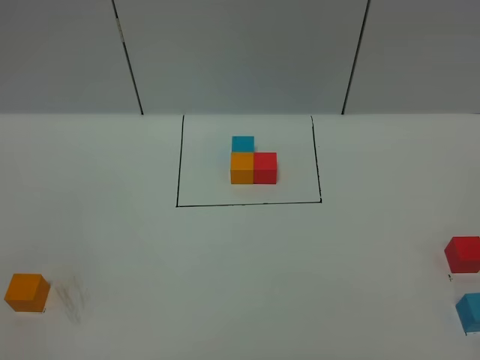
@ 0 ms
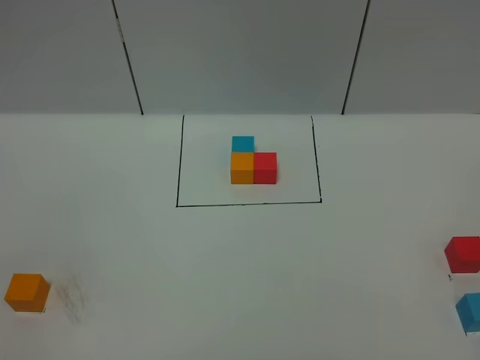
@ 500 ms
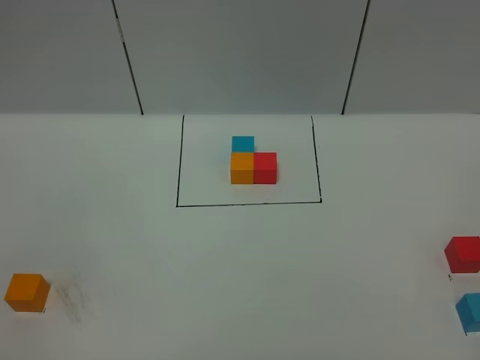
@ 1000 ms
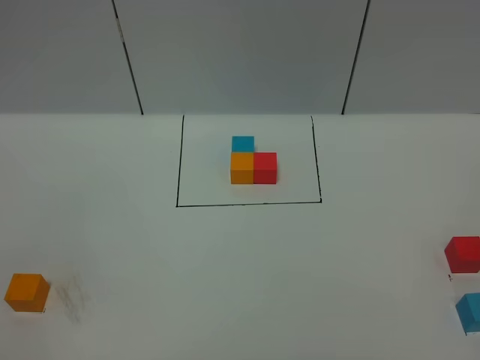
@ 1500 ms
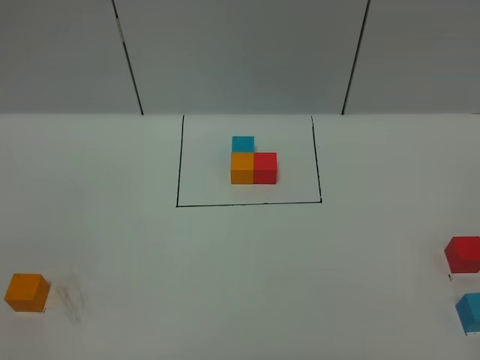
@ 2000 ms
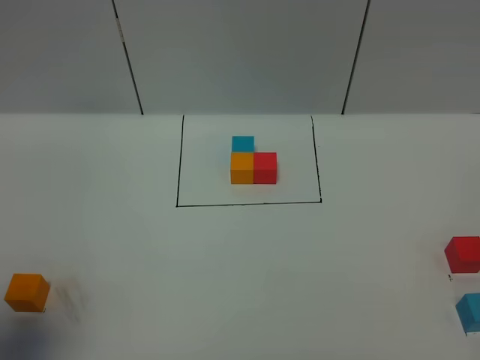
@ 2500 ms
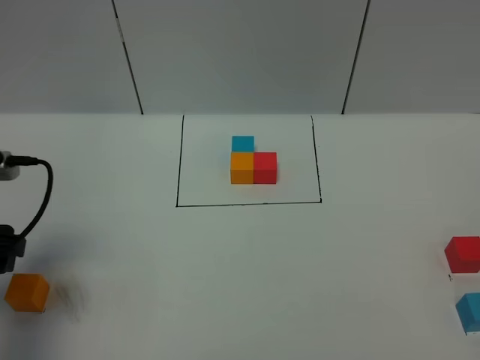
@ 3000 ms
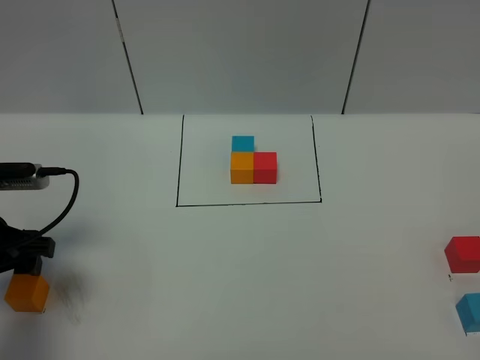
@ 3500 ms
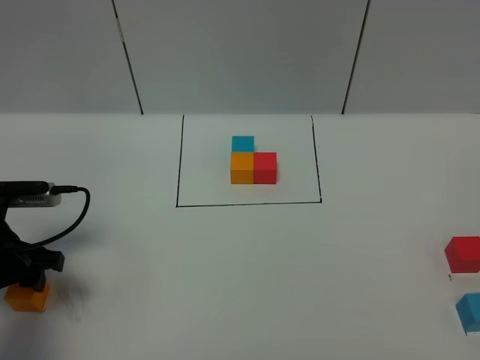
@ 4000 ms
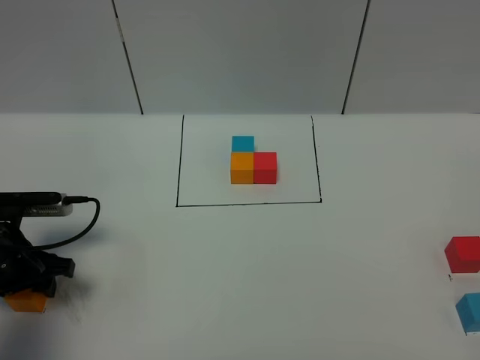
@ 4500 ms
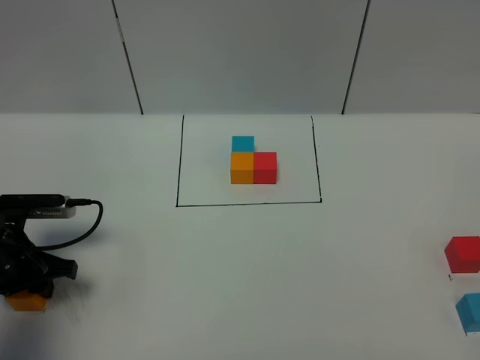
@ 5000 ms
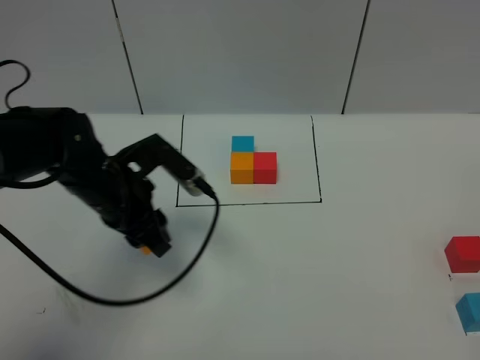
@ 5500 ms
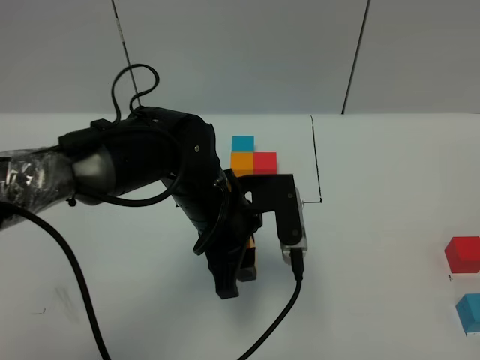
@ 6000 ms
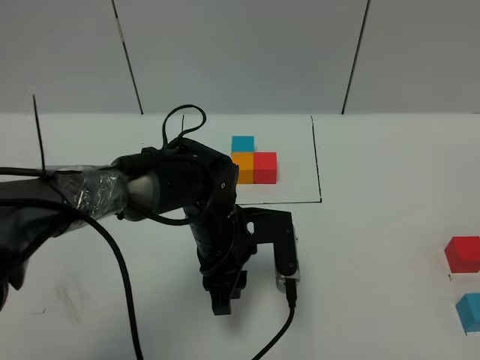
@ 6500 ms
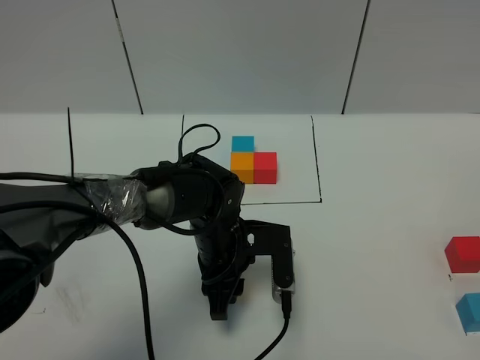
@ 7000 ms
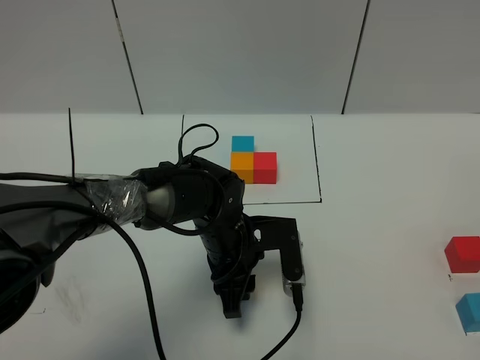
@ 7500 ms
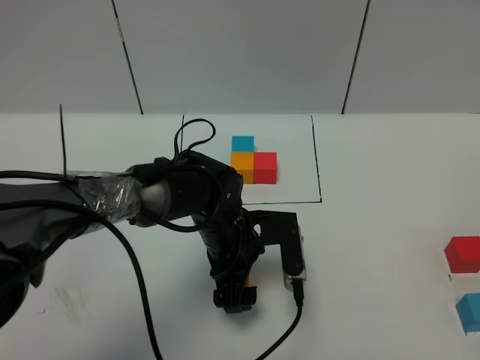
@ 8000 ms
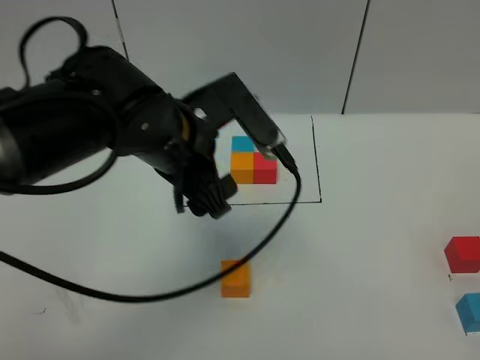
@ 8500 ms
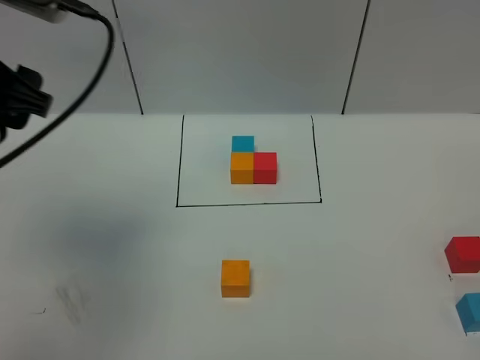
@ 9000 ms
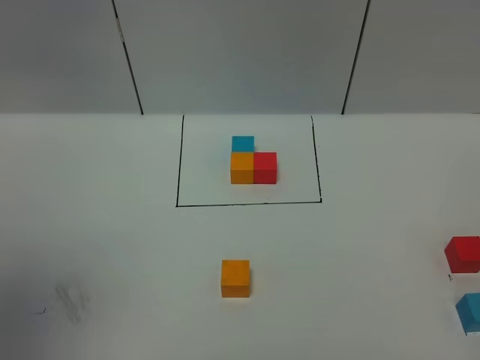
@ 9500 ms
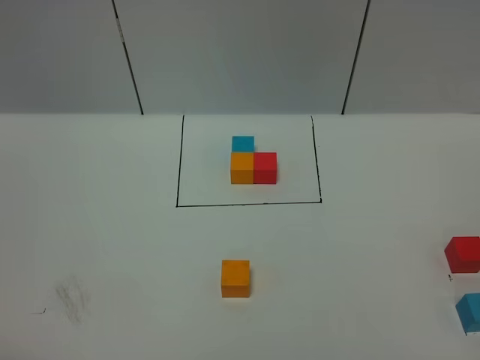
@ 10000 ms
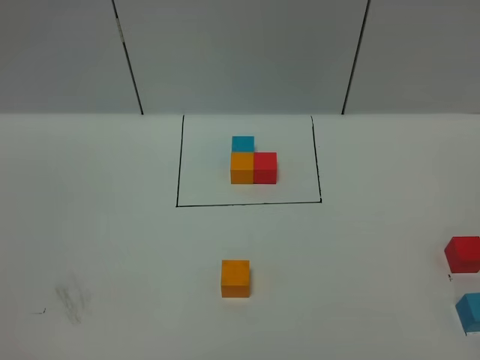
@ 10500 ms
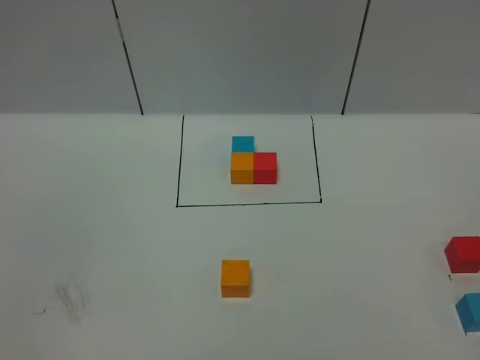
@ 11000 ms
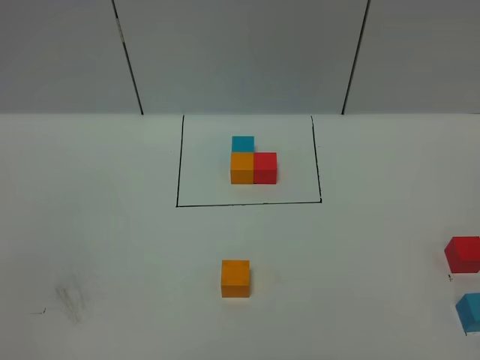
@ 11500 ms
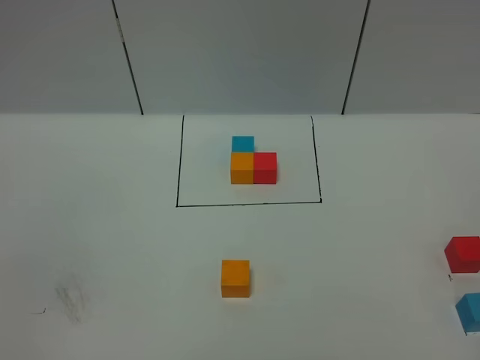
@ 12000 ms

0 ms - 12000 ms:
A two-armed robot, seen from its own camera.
Task of the whole recording: According to the building block template in front, assemble the scattered blocks together.
Step, 3000 ms - 7500 ms: Put the orange cube in the center of the table.
2000 ms - 4000 ms: The left gripper heads forward and downward, covering some 30 cm, and closes up.
4000 ms - 6000 ms: The left gripper is displaced to the right by approximately 25 cm, and closes up.
6000 ms - 8000 ms: The left gripper is displaced downward by roughly 5 cm, and opens its fingers.
8000 ms - 10000 ms: The left gripper heads upward, backward and to the left, covering roughly 60 cm.

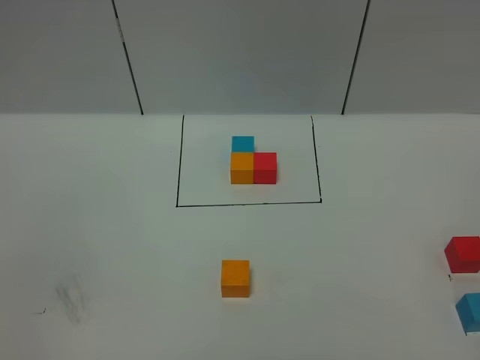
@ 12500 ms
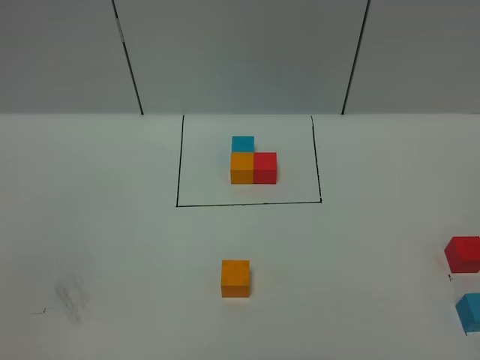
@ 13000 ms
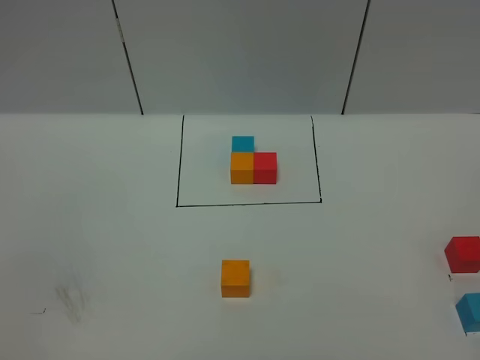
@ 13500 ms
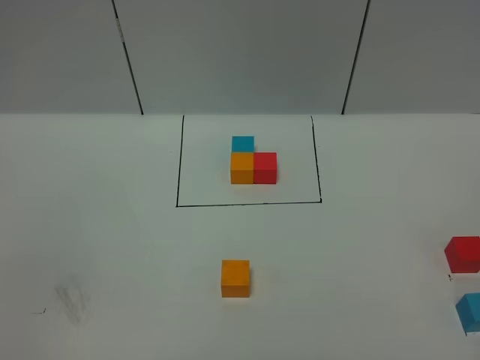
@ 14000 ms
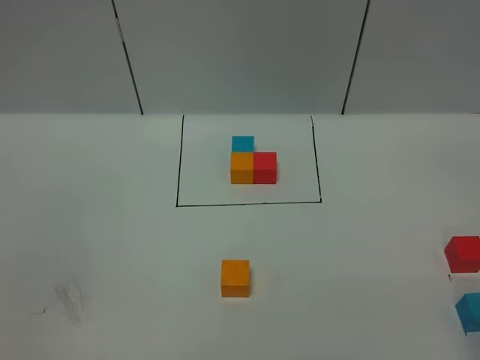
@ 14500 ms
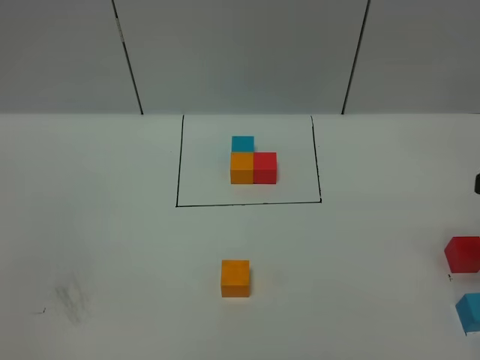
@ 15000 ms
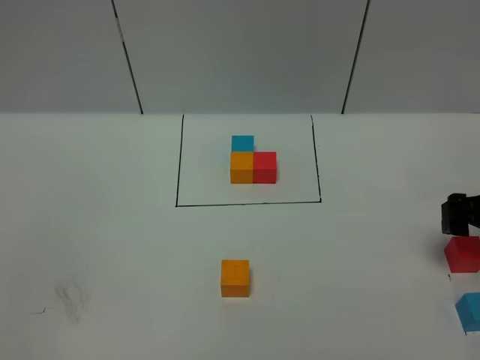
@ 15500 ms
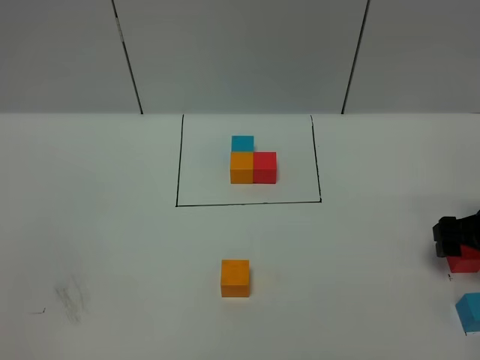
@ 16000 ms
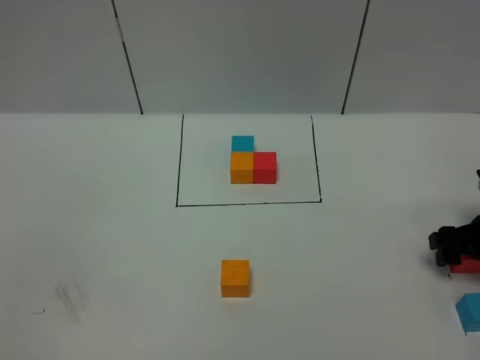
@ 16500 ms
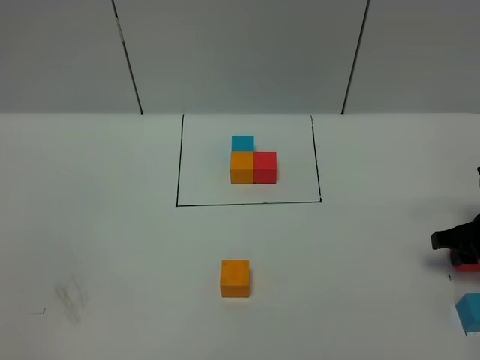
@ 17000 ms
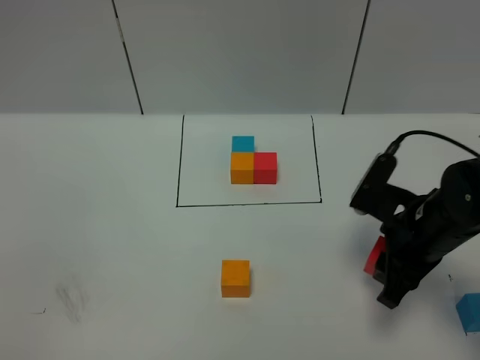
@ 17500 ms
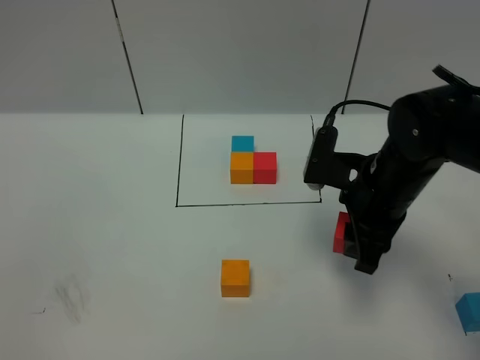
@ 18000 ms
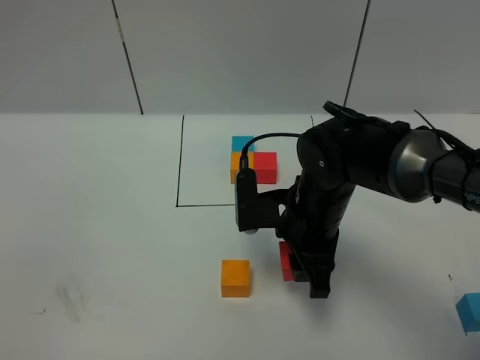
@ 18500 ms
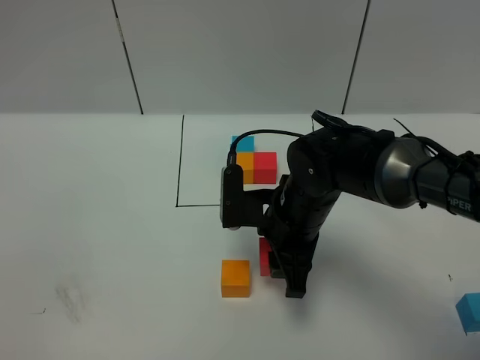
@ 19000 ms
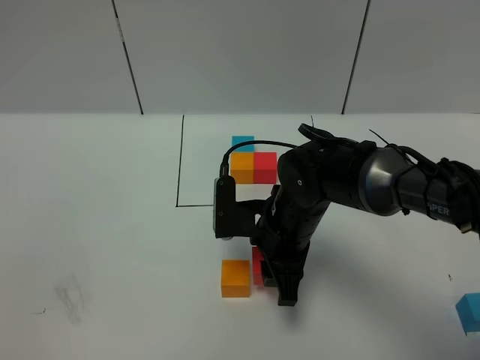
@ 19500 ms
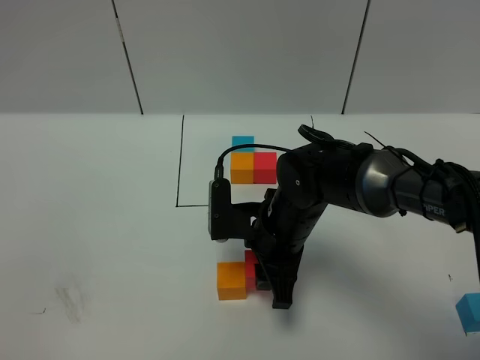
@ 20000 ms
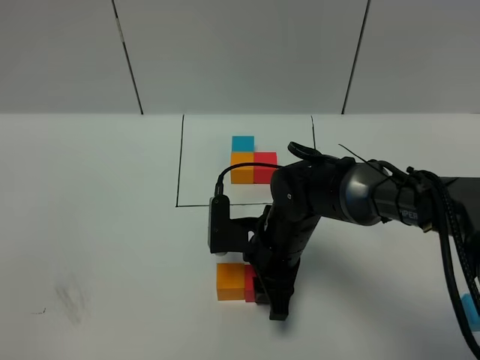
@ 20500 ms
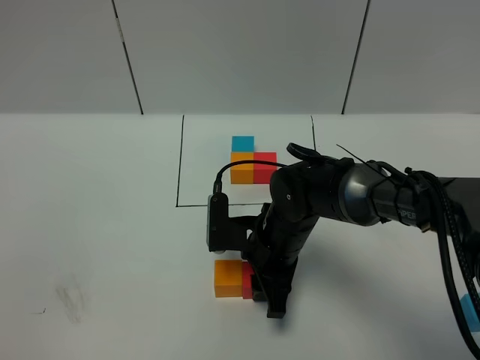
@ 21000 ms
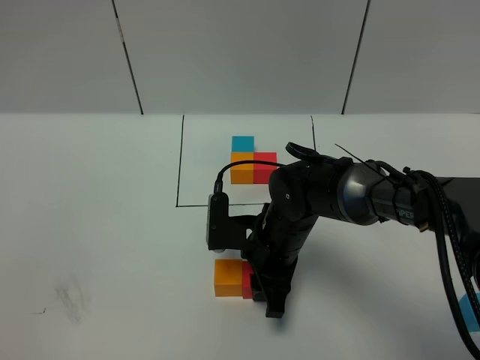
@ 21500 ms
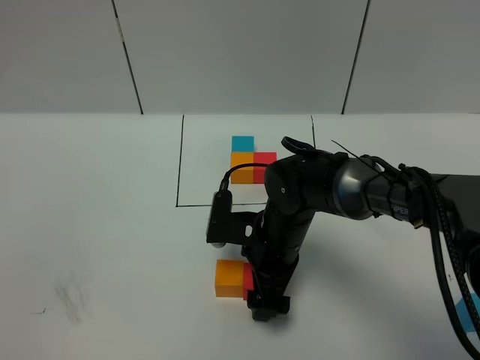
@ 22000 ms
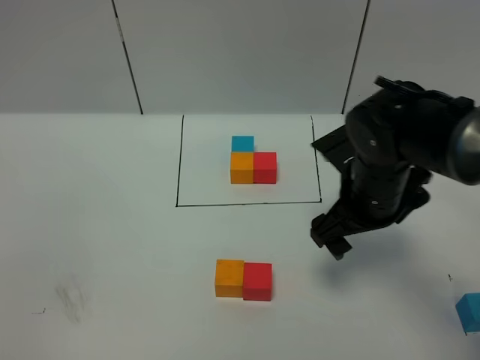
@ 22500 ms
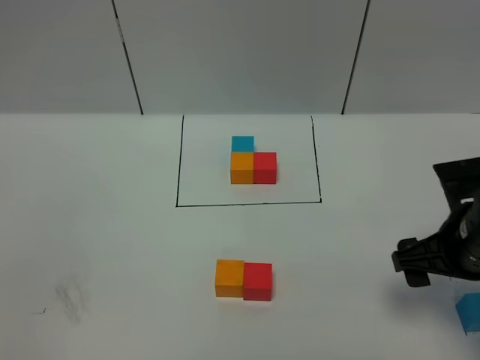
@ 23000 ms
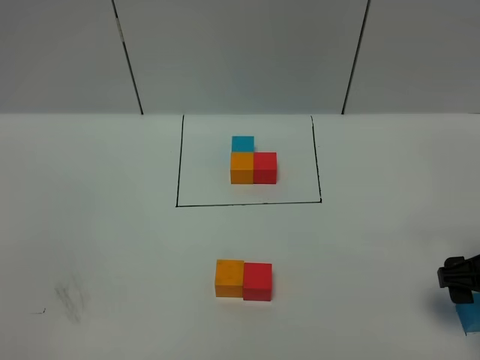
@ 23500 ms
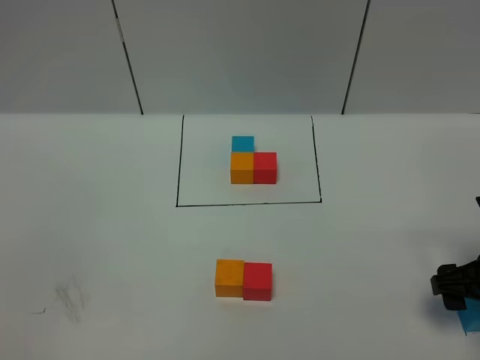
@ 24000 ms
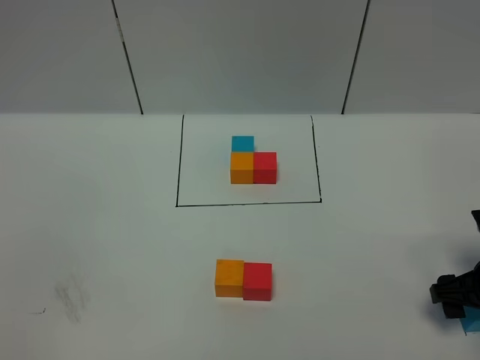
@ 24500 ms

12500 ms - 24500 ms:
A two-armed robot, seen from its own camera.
Task of the whole recording: According to the building block template in front, assemble the scattered blocks together.
Step, 12500 ms - 22000 ms: Put the red cube on the right of the orange cube.
14500 ms - 16500 ms: The right gripper travels forward and downward by approximately 30 cm.
16500 ms - 18500 ms: The right gripper travels to the left by roughly 25 cm, and closes.
18500 ms - 20500 ms: The right gripper is displaced downward by roughly 5 cm.
20500 ms - 22500 ms: The right gripper heads to the right and upward, covering approximately 15 cm, and opens up.
22500 ms - 24500 ms: The right gripper shifts about 20 cm to the right, downward and backward.

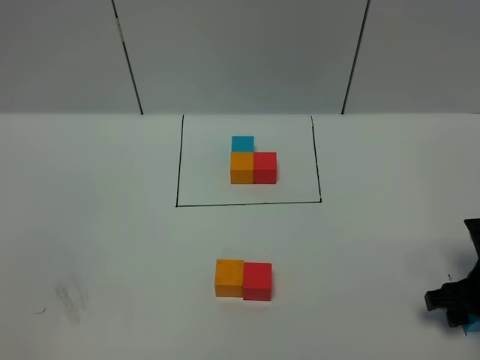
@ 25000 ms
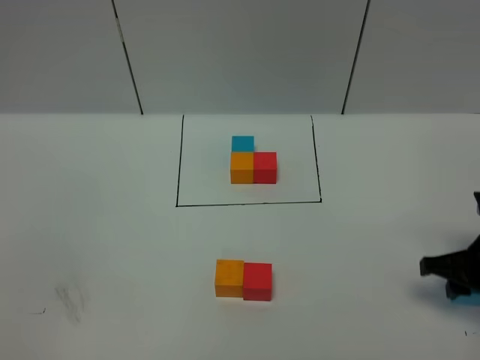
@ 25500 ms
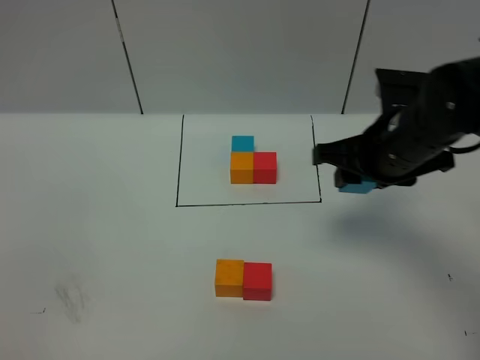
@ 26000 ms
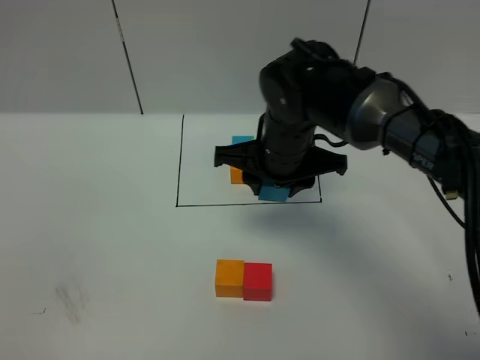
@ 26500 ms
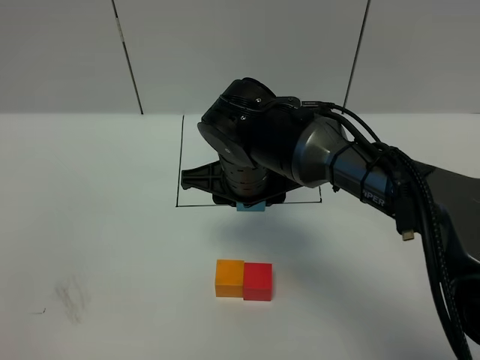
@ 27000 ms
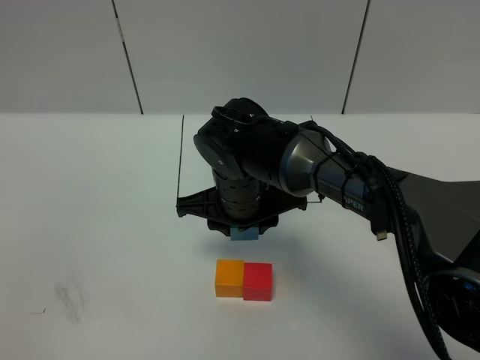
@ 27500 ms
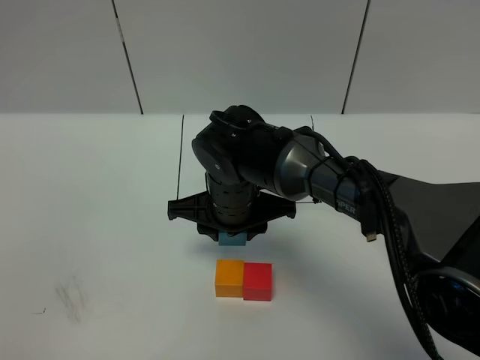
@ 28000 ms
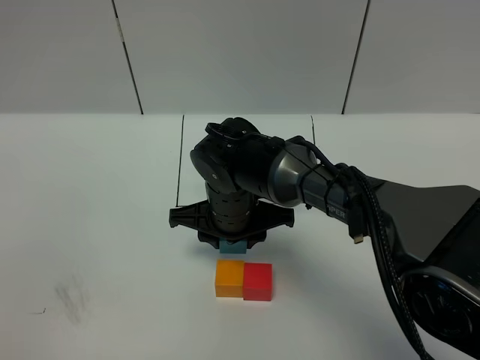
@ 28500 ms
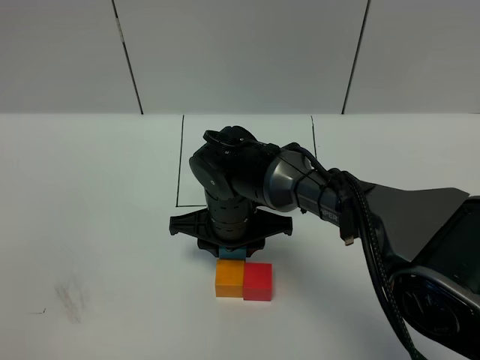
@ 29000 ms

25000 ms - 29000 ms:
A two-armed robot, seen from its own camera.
Task of the whole recording: According to the building block template in front, assemble the scattered blocks together.
25000 ms - 27000 ms: The right gripper travels to the left by about 30 cm.
27000 ms - 29000 ms: The right gripper heads downward, covering some 5 cm.
